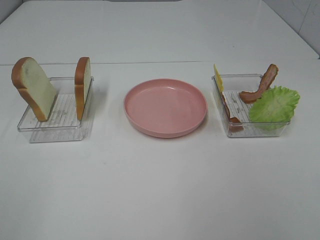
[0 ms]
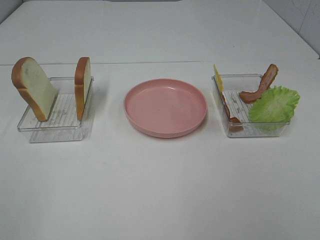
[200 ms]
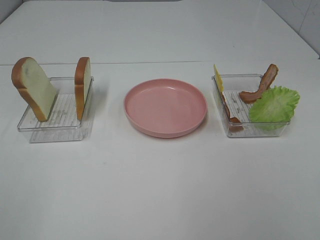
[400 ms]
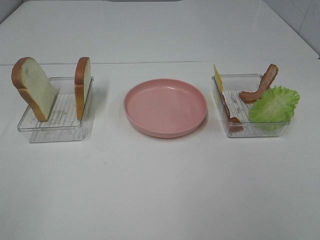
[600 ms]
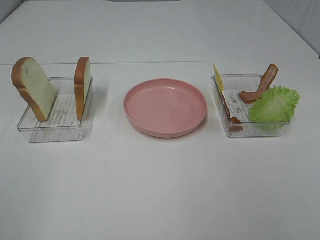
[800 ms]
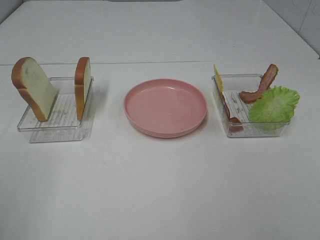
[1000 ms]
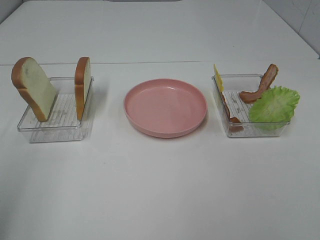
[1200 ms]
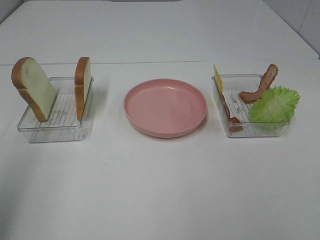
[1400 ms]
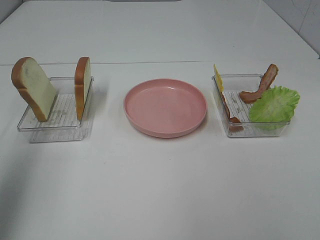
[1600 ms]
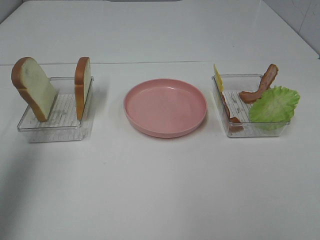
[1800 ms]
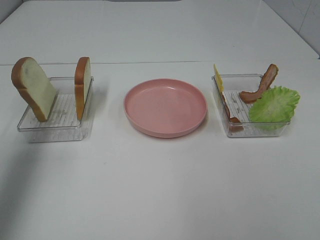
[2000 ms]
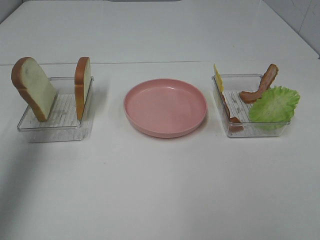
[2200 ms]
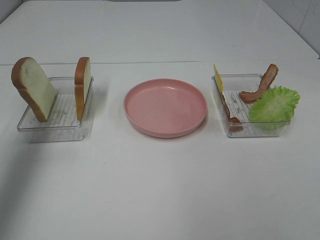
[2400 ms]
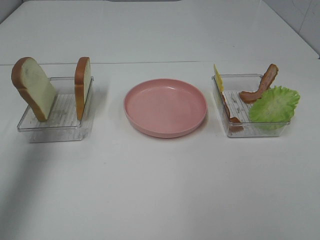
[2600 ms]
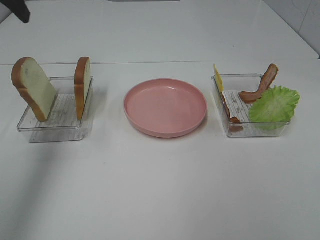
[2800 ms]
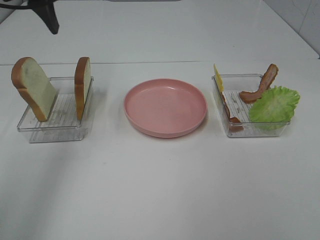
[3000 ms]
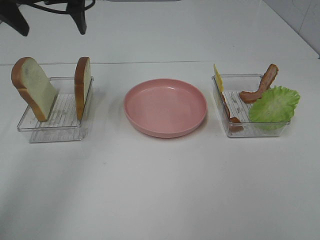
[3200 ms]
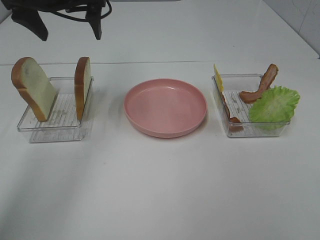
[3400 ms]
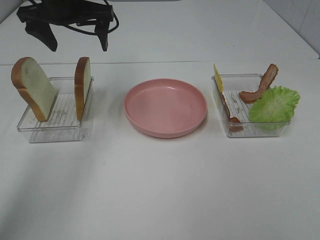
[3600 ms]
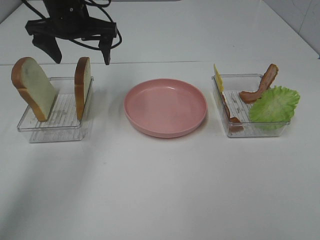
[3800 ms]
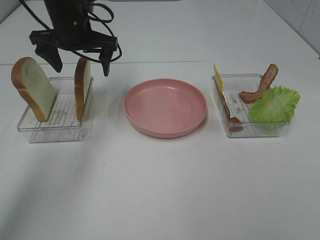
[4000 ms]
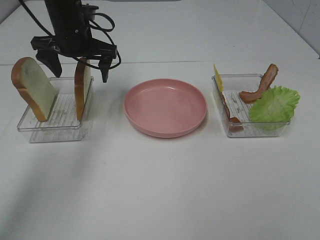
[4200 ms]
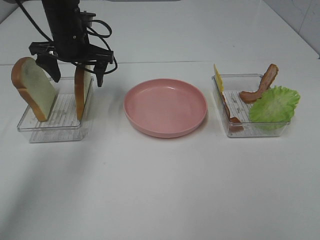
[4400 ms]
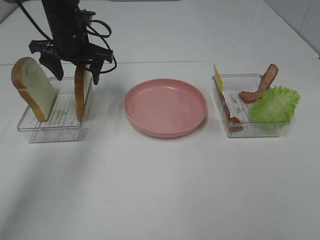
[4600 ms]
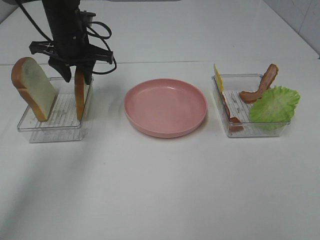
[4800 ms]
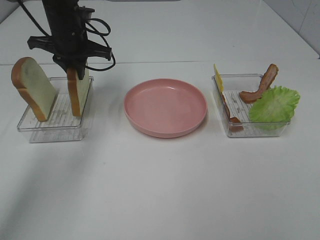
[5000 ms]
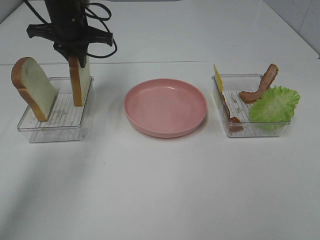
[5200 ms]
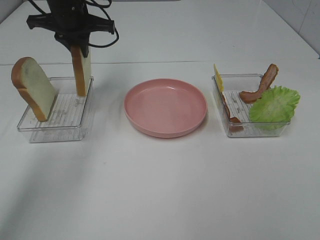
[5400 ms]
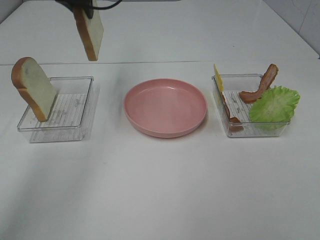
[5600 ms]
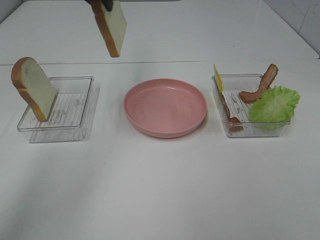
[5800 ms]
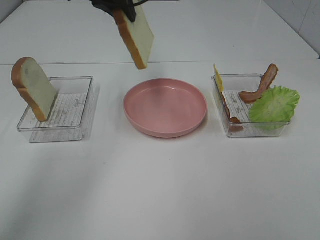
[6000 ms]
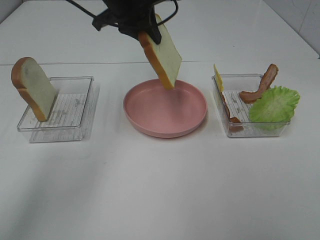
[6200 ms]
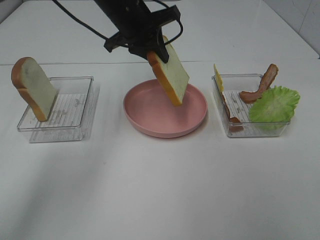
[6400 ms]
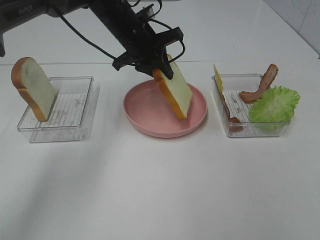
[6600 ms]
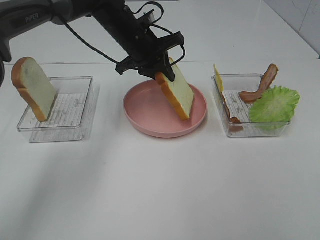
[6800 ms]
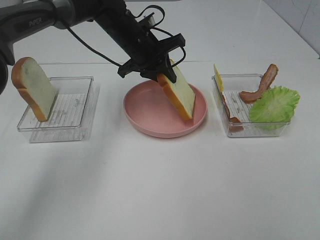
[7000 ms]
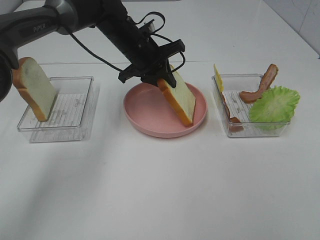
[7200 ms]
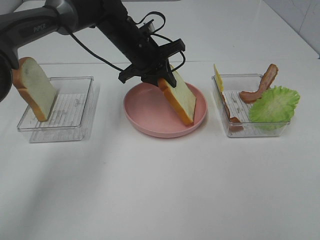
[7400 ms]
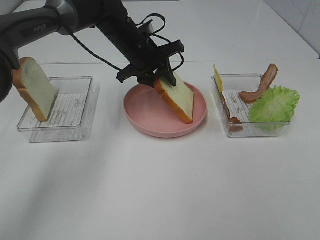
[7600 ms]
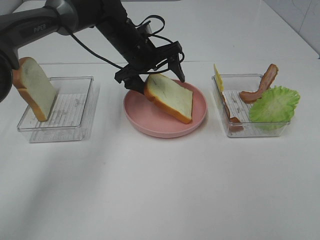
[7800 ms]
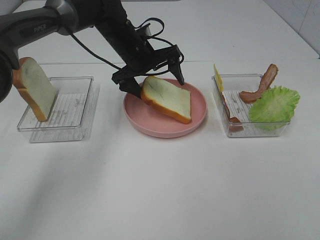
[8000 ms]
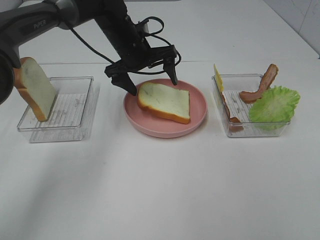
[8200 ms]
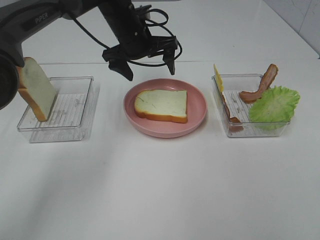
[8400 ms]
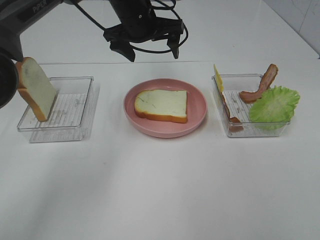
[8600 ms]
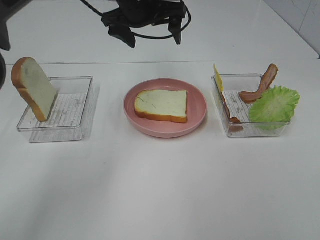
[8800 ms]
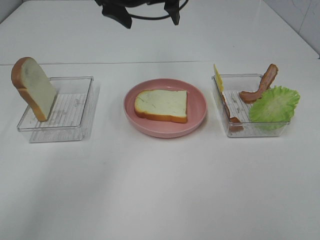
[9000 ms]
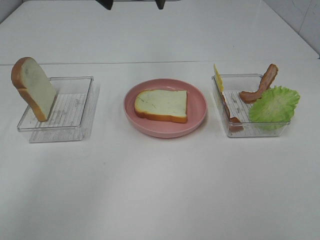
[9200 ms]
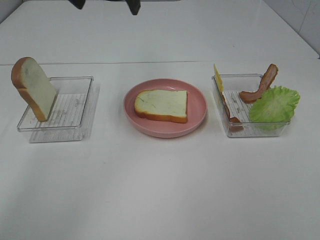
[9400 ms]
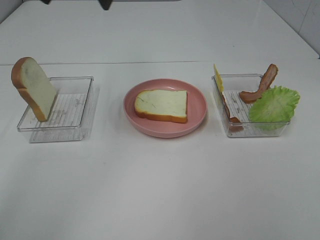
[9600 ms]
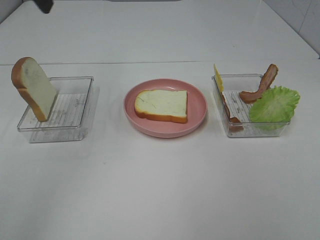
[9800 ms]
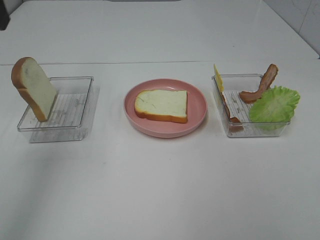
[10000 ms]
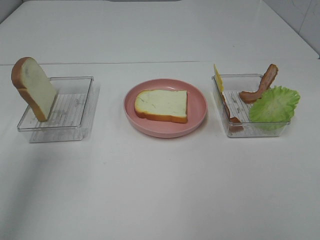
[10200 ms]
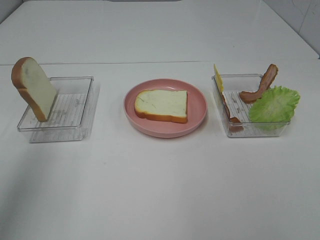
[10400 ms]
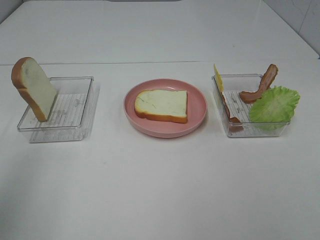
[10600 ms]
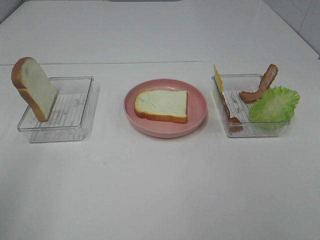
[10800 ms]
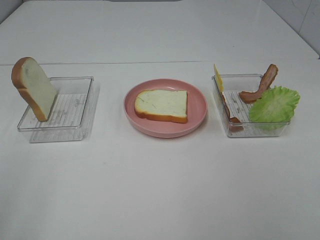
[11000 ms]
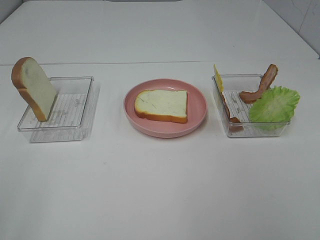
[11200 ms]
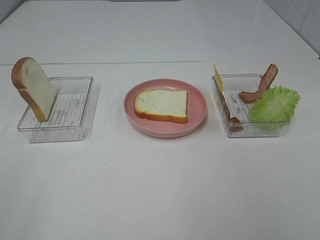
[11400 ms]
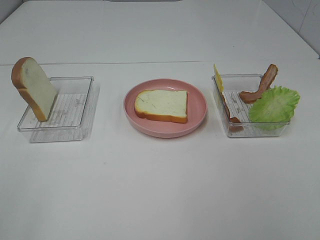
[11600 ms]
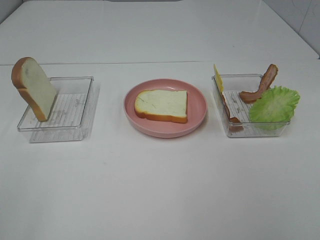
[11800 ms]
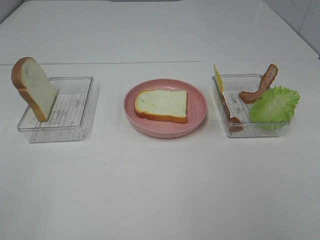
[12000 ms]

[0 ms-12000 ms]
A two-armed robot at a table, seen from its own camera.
Task of the whole recording: Make sandwiches.
Step, 0 ms to 5000 ms: Left hand:grab the bread slice.
Step, 5200 ms to 8400 ms: Left hand:place the bread slice on the plate.
0 ms to 1600 ms: The left gripper travels forward and upward by approximately 20 cm.
1600 ms to 3000 ms: The left gripper travels forward and to the right by some 20 cm.
3000 ms to 4400 ms: The left gripper shifts approximately 20 cm downward and forward.
4400 ms to 6000 ms: The left gripper shifts roughly 15 cm upward and to the right, and closes.
6000 ms to 7600 ms: The left gripper is displaced downward by about 15 cm.
7600 ms to 9000 ms: The left gripper heads upward, covering roughly 15 cm, and opens up.
9000 ms to 10400 ms: The left gripper shifts about 35 cm backward and to the left.
10400 ms to 12000 ms: The left gripper moves backward and downward, some 20 cm.

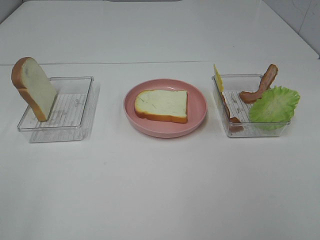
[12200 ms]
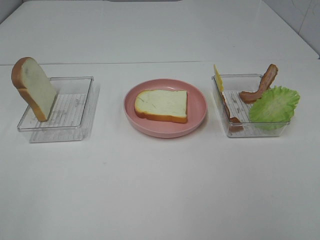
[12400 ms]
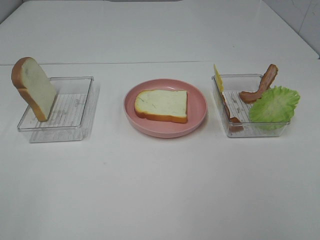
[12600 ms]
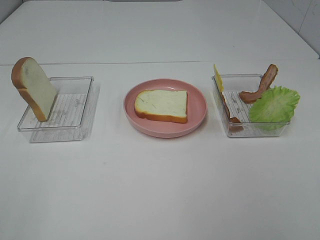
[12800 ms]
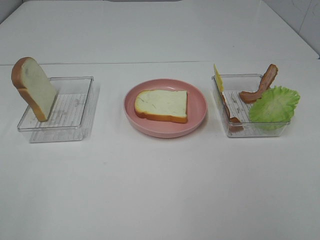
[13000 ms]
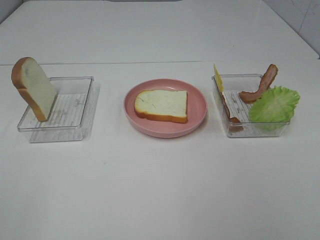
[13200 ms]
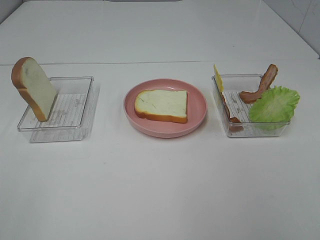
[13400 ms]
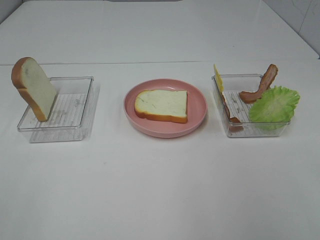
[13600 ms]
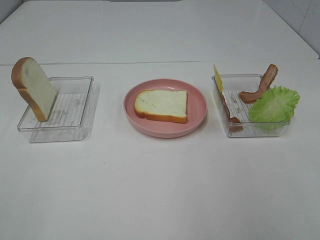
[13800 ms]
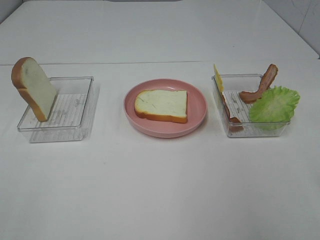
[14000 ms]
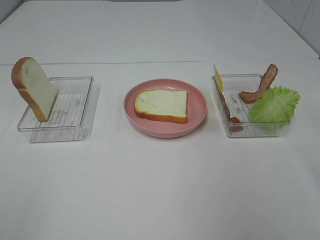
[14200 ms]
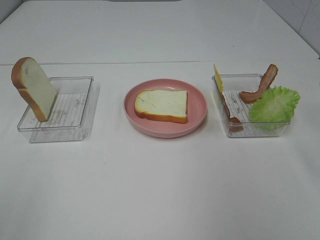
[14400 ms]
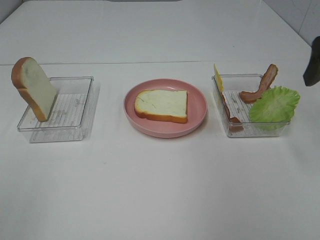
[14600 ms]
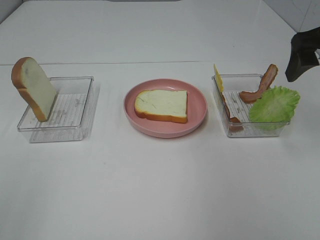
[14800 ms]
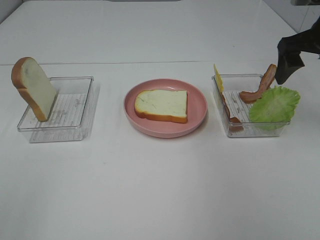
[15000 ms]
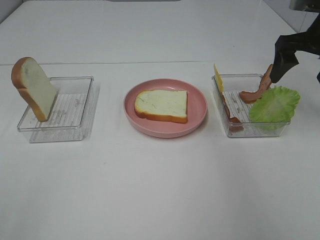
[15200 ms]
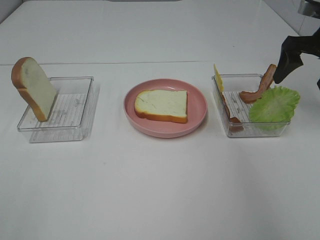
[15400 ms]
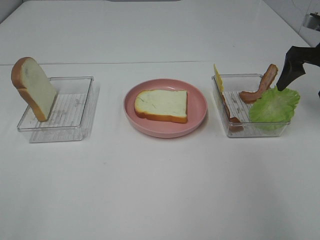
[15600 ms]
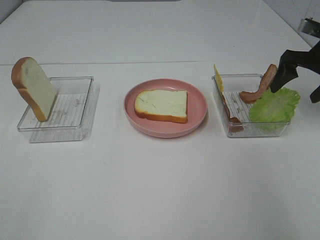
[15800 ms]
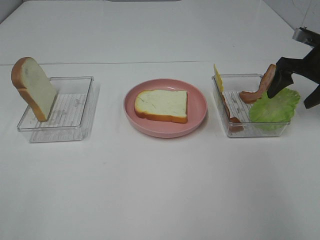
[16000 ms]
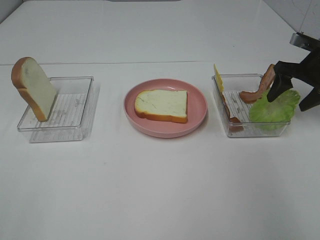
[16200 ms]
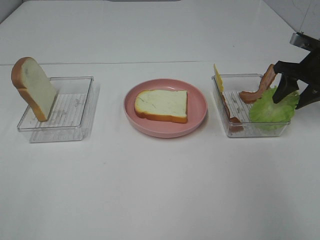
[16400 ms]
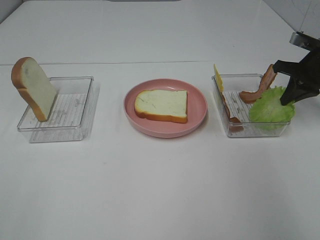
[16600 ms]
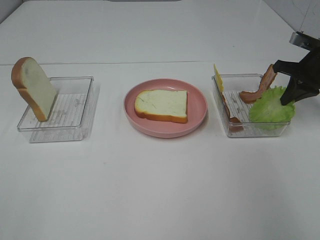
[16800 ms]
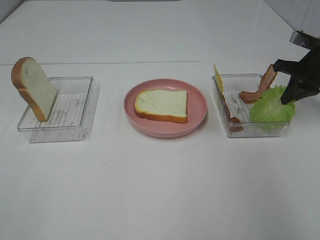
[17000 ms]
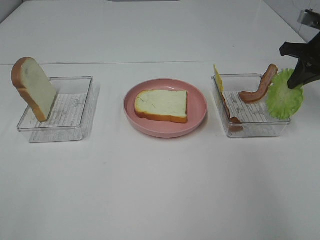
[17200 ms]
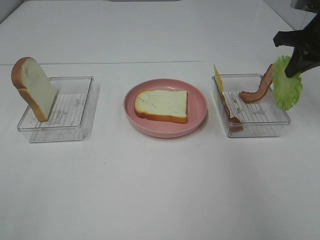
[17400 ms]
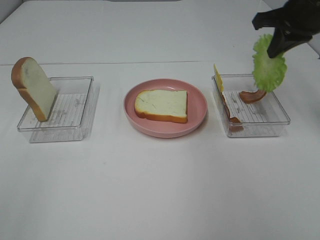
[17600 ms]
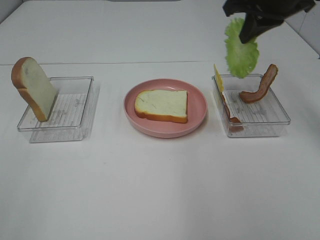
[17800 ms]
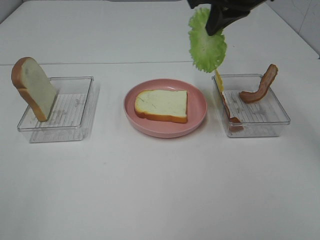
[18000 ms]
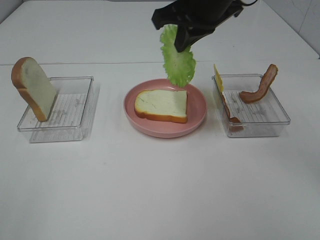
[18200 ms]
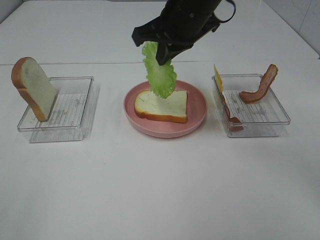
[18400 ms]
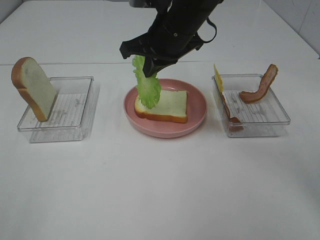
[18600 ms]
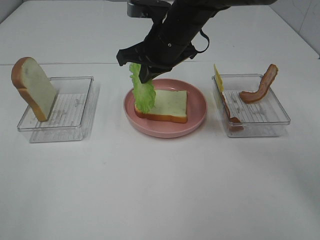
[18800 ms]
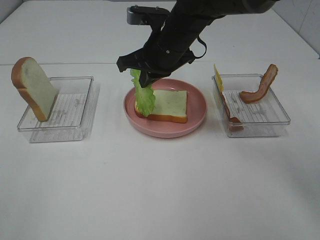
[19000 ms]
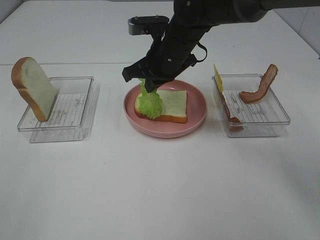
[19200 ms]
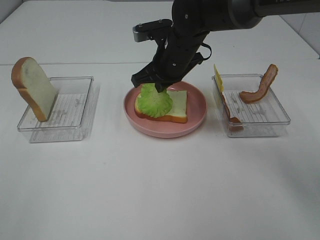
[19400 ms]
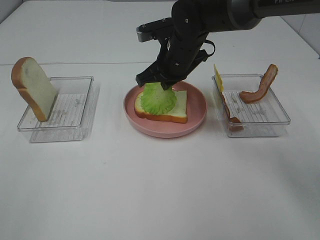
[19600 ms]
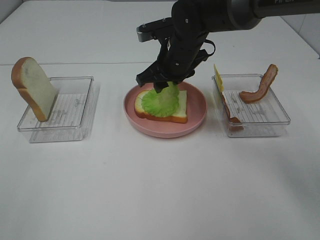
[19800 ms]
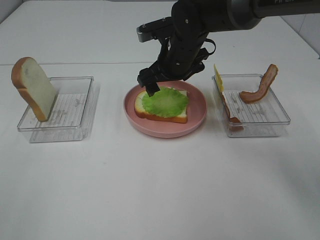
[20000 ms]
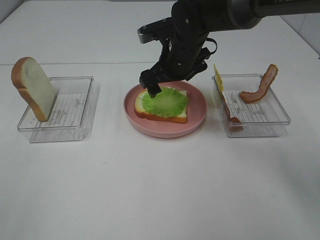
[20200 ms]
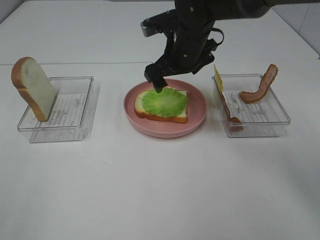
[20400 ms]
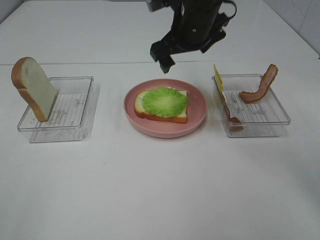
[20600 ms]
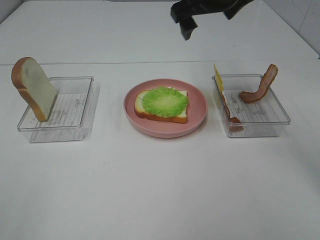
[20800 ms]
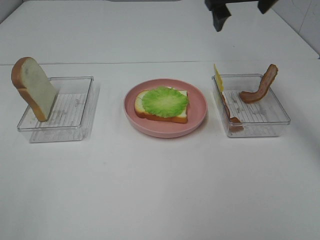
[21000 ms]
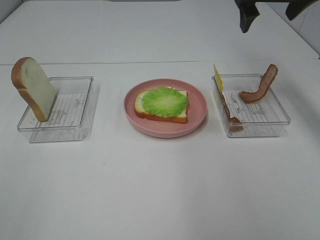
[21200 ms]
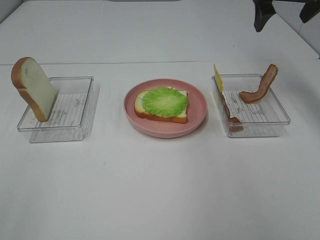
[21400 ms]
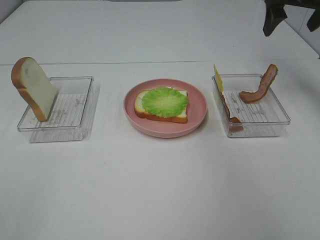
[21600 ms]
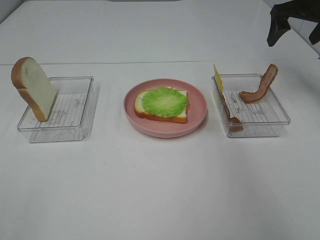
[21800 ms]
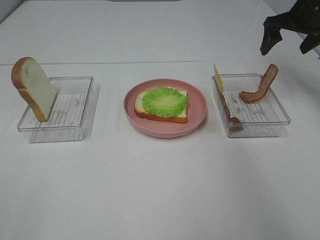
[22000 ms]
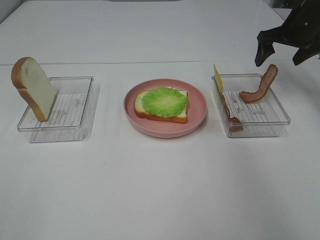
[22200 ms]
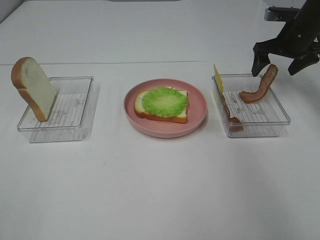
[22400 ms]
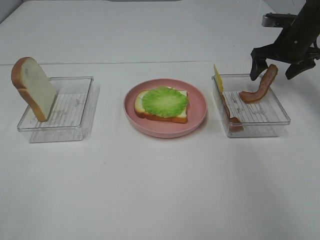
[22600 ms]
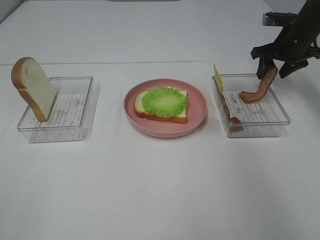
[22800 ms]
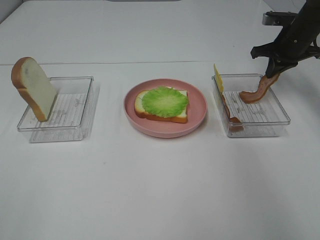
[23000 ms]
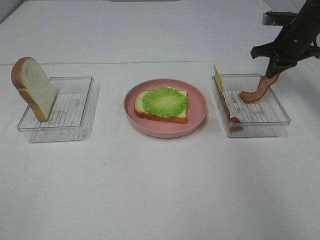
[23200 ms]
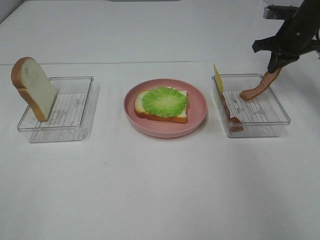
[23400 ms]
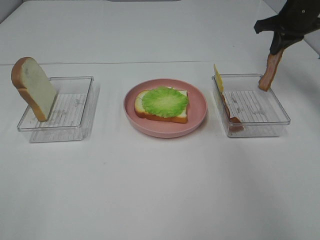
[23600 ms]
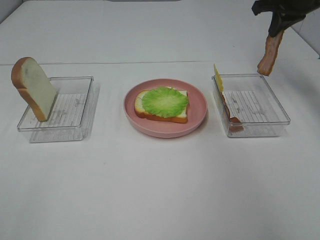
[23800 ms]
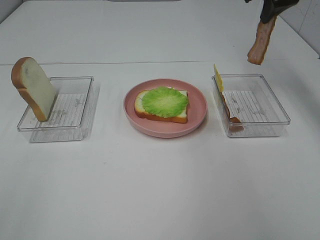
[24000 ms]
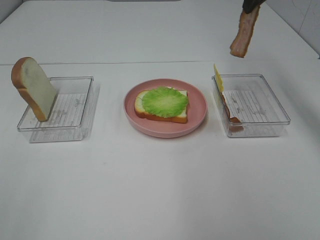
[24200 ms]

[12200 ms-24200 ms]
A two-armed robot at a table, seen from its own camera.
Task of the whole recording: Make sandwiches.
Step, 12200 ms to 16600 ms: Right hand:grab the lettuce slice.
Step, 16800 ms to 20000 ms: Right hand:place the lettuce slice on the bread slice.
Step, 20200 ms to 23400 ms: Right hand:grab the bacon.
13800 ms to 15200 ms: The right gripper shifts roughly 30 cm forward.
15200 ms to 16600 ms: The right gripper heads downward, covering about 10 cm, and closes.
16600 ms to 18200 ms: The right gripper travels to the left and upward by about 30 cm.
18200 ms to 19800 ms: The right gripper heads downward, covering some 15 cm, and opens its fingers.
19800 ms to 21200 ms: The right gripper is displaced to the right and upward by about 25 cm, and opens.
21200 ms to 22600 ms: The right gripper moves downward, to the right and forward, about 20 cm.
22600 ms to 24200 ms: The right gripper goes about 20 cm upward and to the left, and closes.
